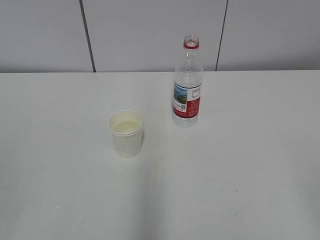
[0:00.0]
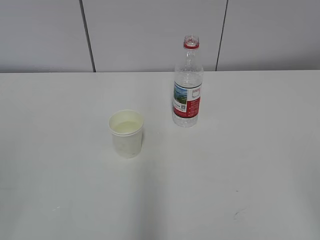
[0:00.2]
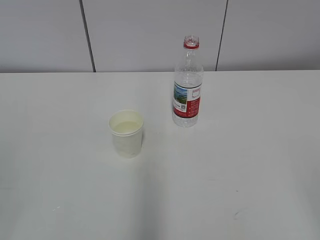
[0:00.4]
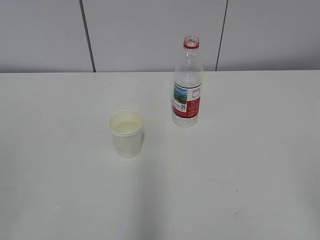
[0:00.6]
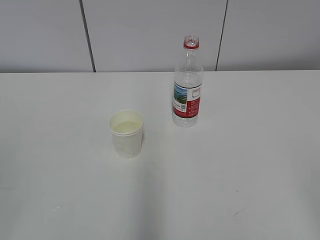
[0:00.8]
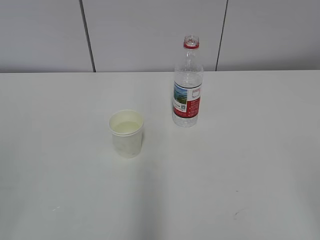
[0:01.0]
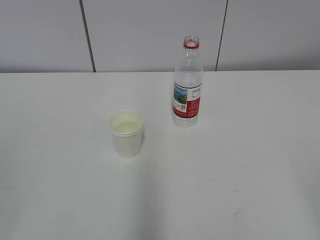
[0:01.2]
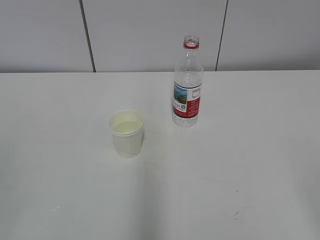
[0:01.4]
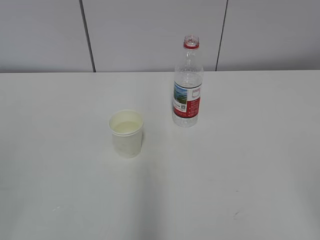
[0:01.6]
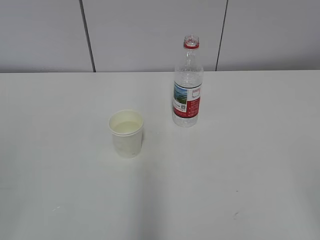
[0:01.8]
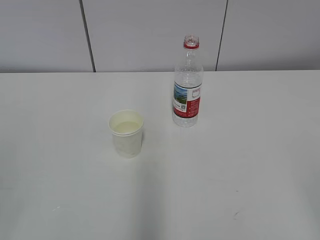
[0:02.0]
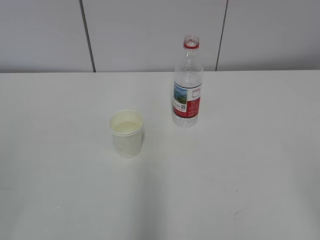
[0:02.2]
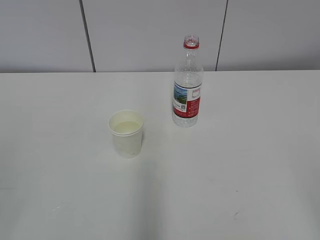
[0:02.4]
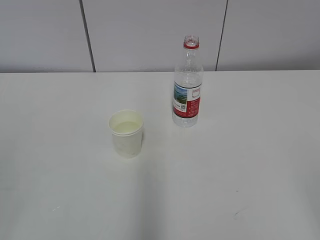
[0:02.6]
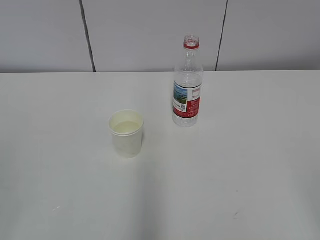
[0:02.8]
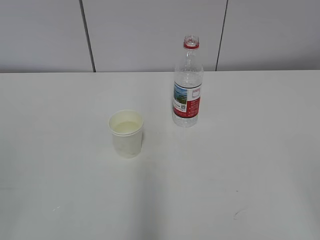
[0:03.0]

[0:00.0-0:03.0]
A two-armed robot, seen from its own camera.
0:00.0 to 0:03.0: Both grippers stay put.

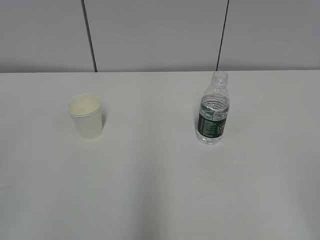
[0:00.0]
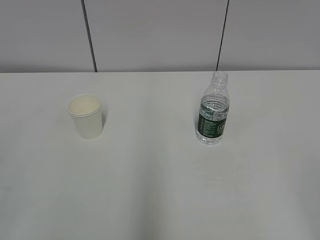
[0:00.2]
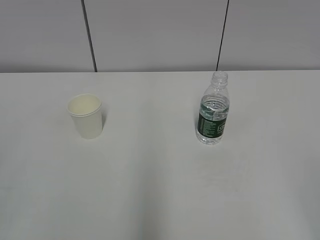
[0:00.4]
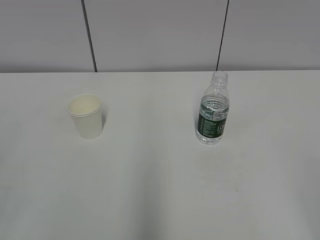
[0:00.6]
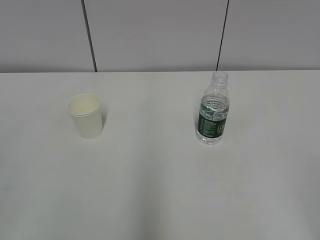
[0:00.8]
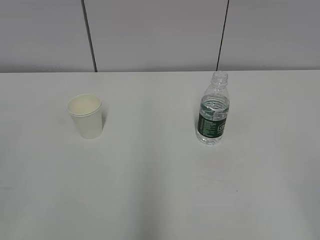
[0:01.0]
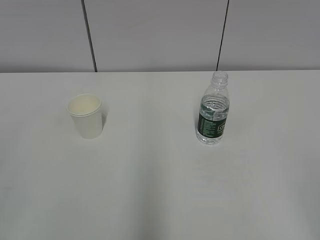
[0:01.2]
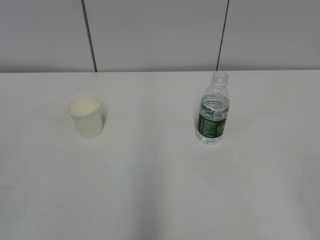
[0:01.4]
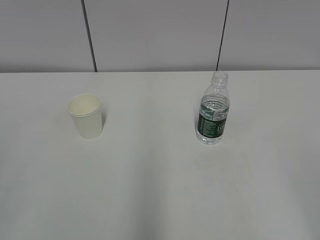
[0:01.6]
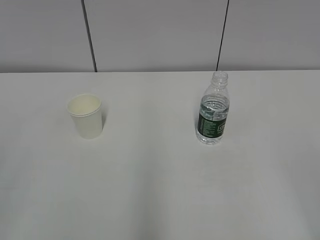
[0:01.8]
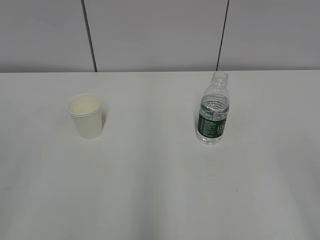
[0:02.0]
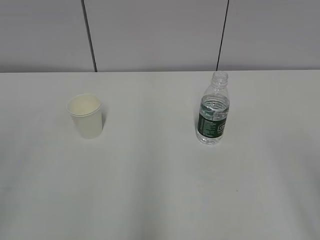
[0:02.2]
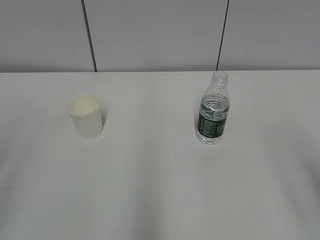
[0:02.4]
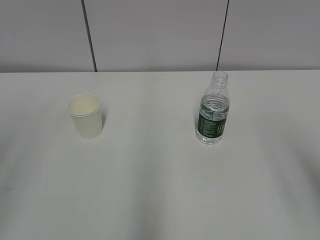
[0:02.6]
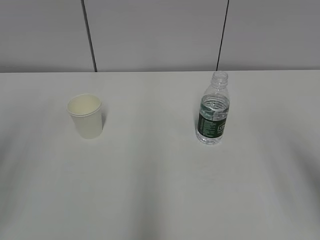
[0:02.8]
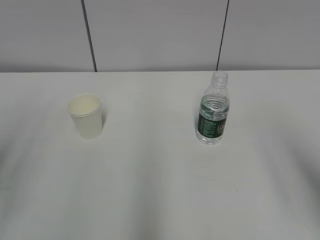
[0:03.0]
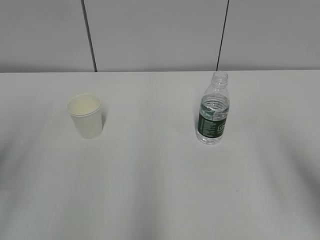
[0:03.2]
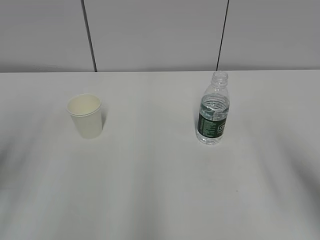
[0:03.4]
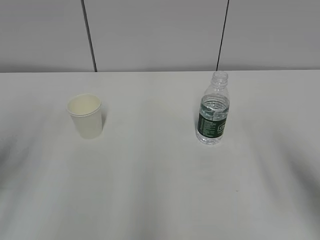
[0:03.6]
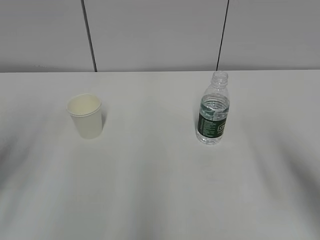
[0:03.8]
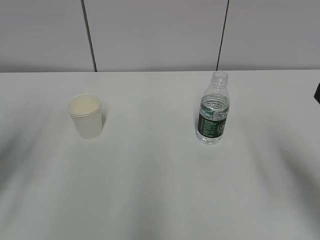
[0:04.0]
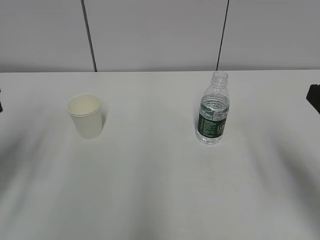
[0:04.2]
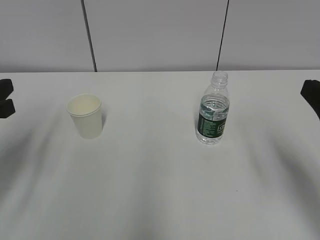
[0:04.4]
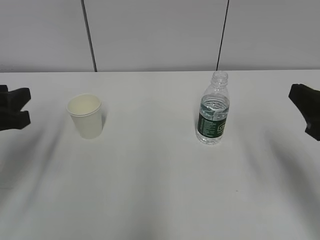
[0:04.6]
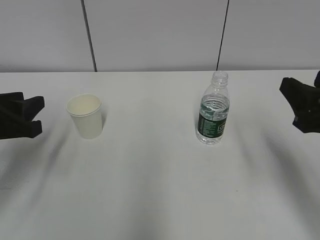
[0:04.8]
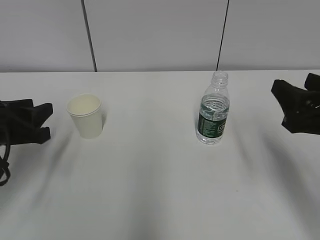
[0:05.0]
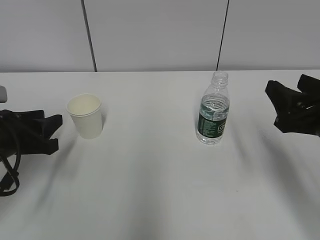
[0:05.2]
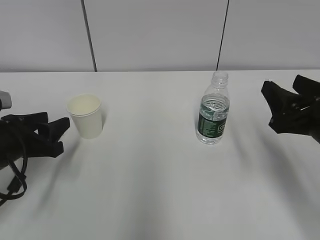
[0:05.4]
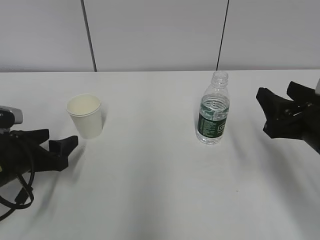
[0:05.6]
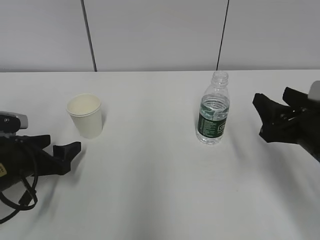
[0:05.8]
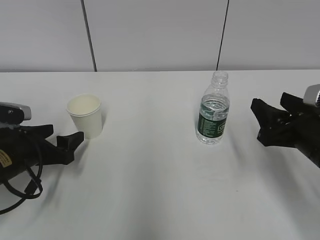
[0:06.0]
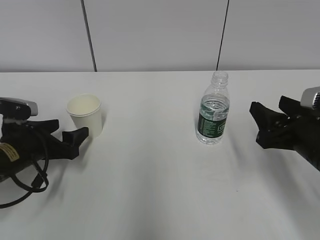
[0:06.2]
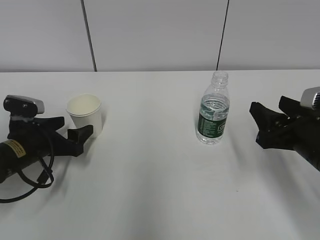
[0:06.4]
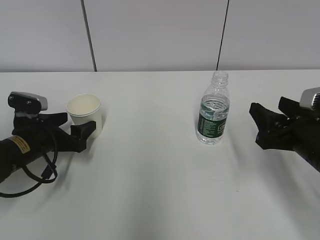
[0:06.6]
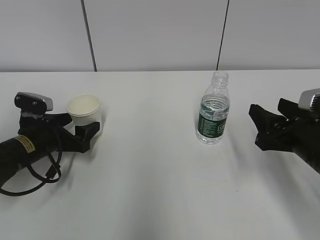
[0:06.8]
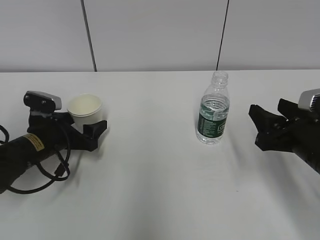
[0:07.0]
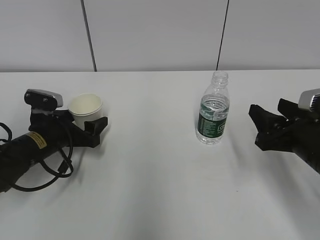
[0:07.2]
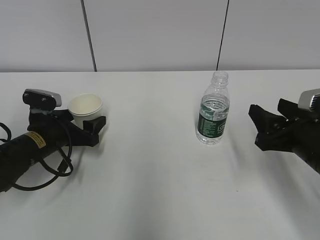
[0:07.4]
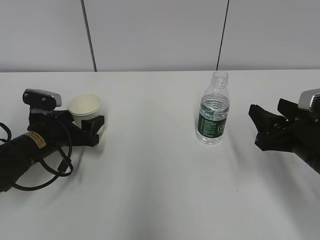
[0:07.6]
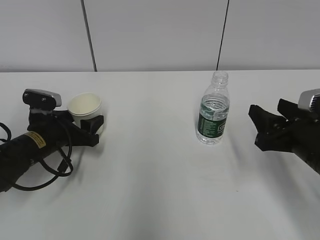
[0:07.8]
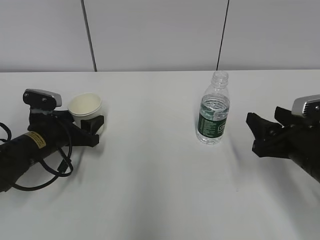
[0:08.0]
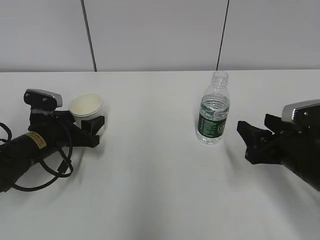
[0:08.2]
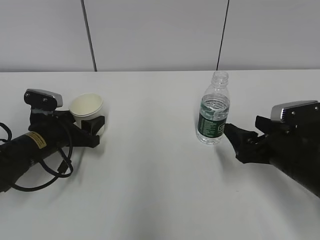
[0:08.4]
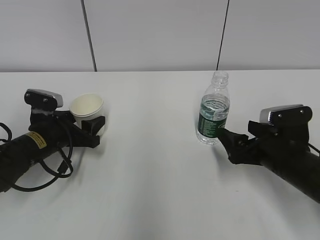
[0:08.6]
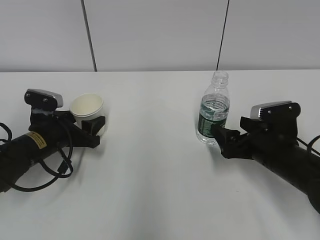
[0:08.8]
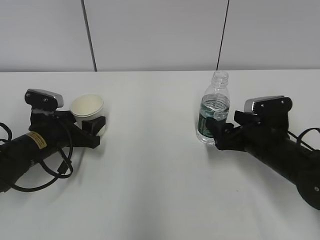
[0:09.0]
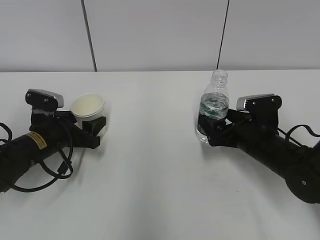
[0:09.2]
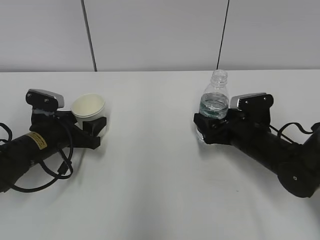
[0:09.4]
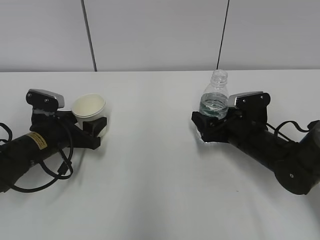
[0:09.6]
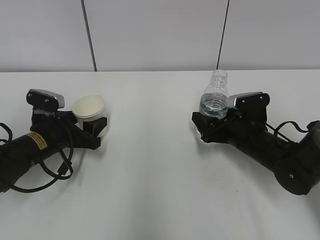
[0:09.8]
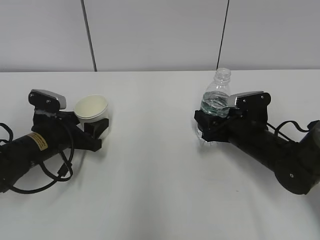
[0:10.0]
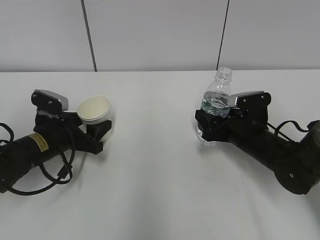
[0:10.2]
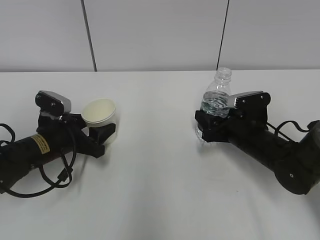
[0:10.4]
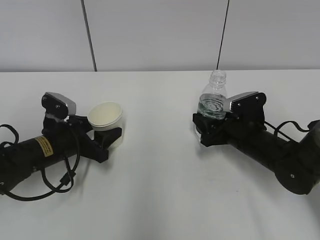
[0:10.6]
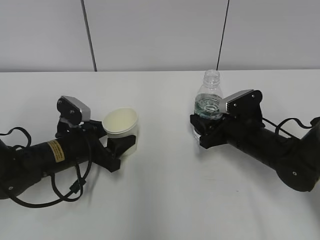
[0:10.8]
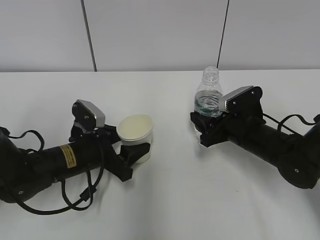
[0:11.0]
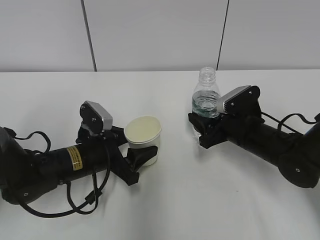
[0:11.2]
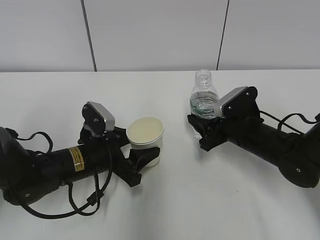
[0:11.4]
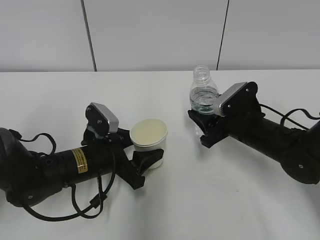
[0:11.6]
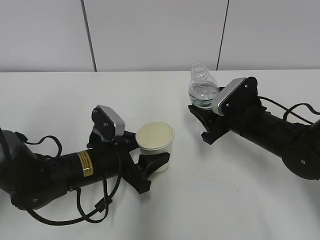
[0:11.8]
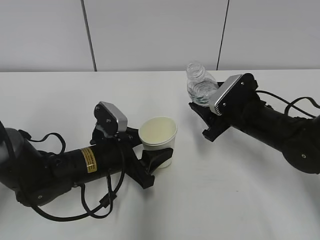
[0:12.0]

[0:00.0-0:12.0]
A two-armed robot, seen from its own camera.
Step, 0:00.0 to 0:06.2: Grab the paper cup with the left hand.
Step, 0:06.4 to 0:08.2: Grab the water bottle with the right hand.
0:03.0 to 0:04.4: The grippers both shift forward and downward by about 10 cm.
0:04.4 to 0:06.0: Both grippers move downward and forward, about 15 cm. The left gripper opens.
0:06.0 to 0:07.6: The left gripper goes approximately 5 cm forward.
0:07.6 to 0:09.0: The right gripper heads forward and downward, covering approximately 10 cm, and opens its fingers.
0:09.0 to 0:10.4: The right gripper closes its fingers.
0:10.4 to 0:12.0: The left gripper is displaced to the right by about 10 cm.

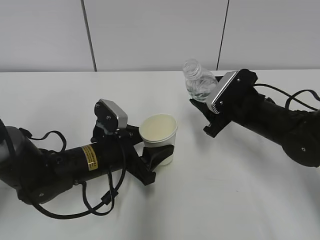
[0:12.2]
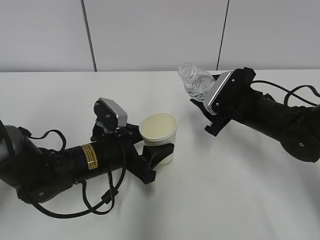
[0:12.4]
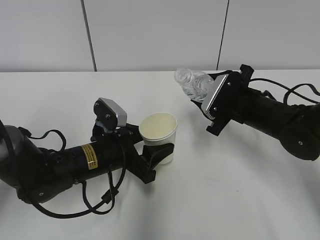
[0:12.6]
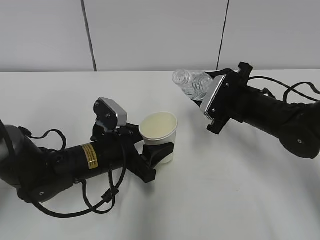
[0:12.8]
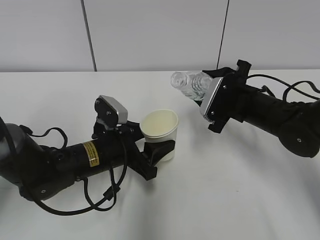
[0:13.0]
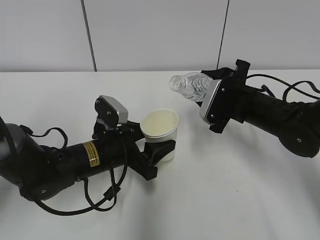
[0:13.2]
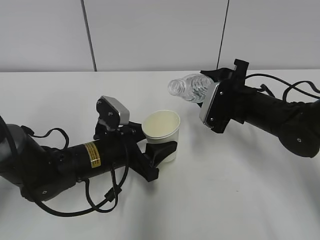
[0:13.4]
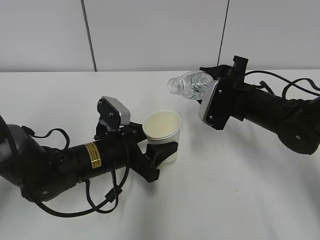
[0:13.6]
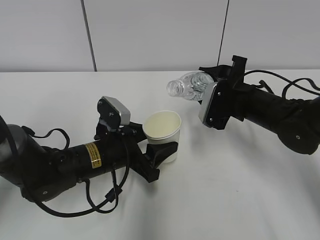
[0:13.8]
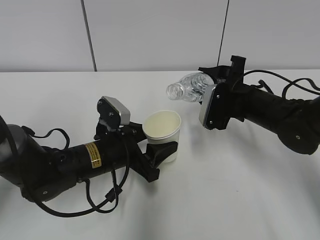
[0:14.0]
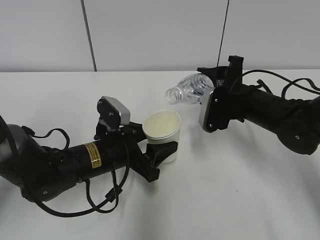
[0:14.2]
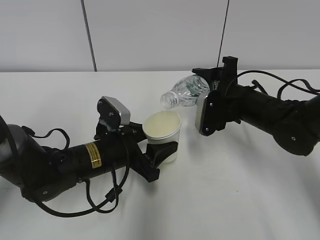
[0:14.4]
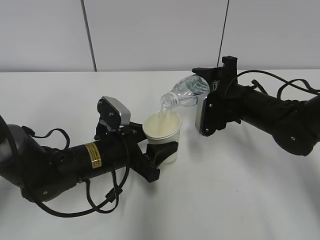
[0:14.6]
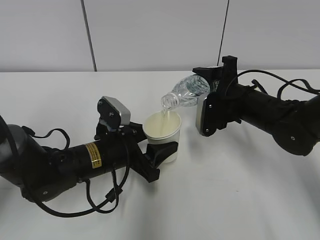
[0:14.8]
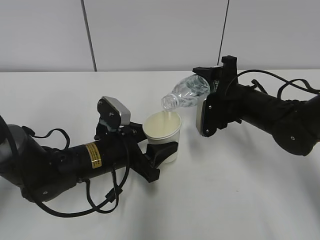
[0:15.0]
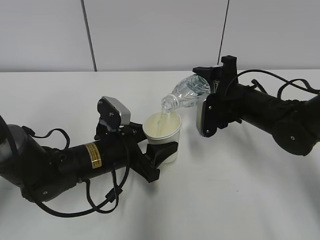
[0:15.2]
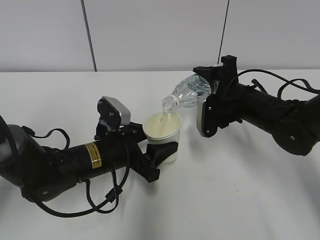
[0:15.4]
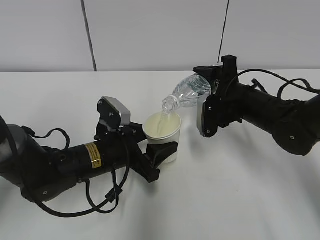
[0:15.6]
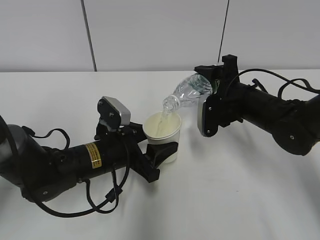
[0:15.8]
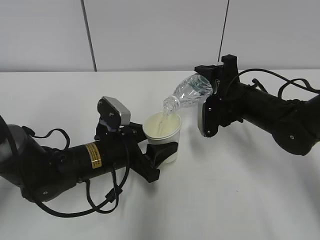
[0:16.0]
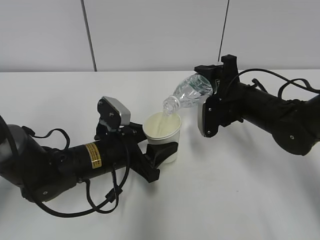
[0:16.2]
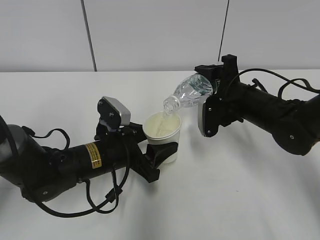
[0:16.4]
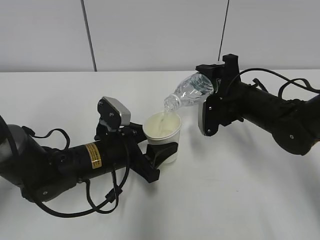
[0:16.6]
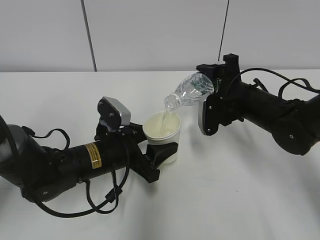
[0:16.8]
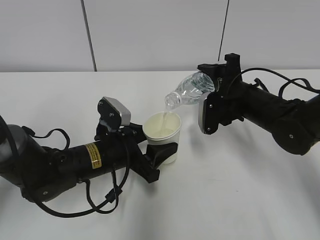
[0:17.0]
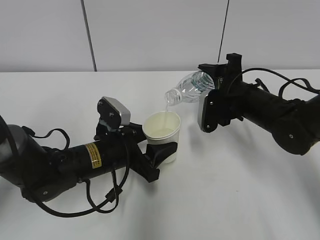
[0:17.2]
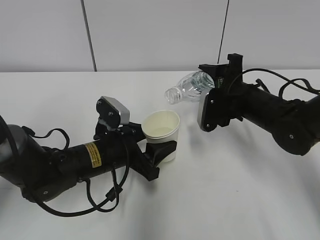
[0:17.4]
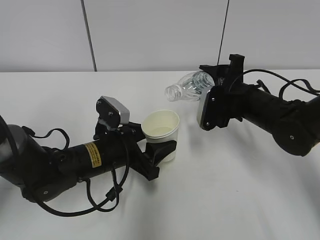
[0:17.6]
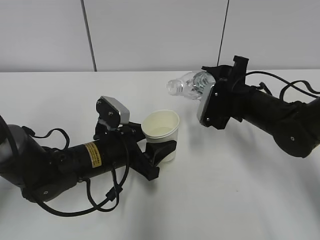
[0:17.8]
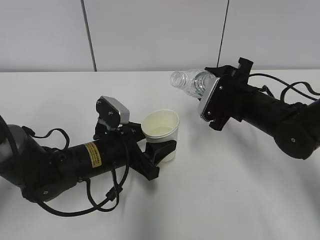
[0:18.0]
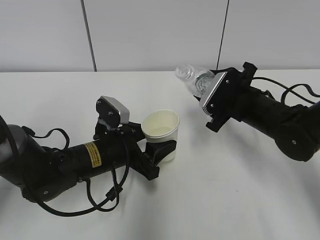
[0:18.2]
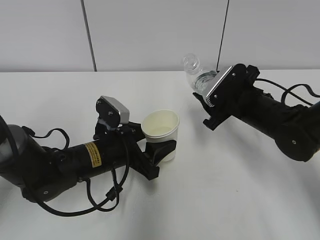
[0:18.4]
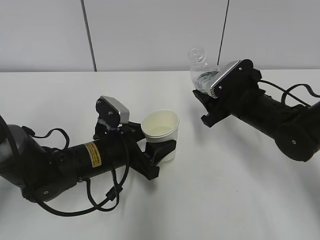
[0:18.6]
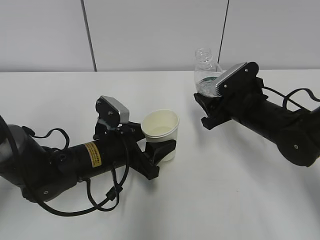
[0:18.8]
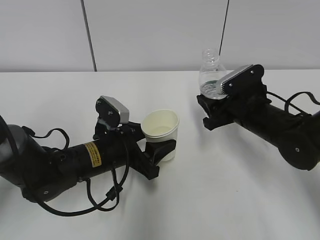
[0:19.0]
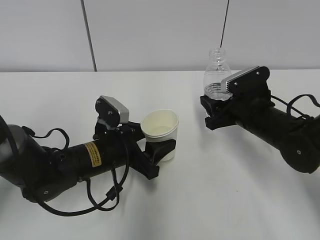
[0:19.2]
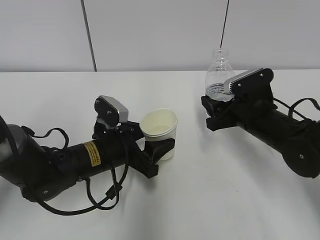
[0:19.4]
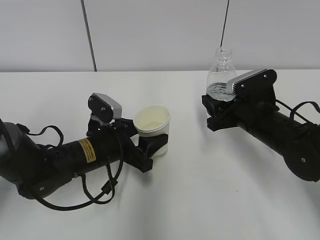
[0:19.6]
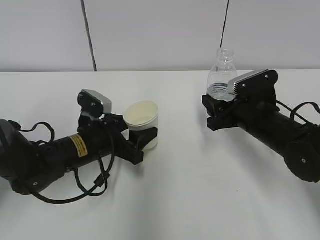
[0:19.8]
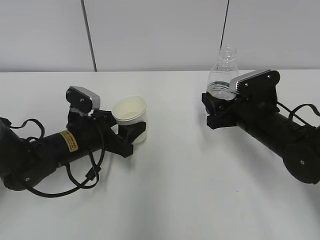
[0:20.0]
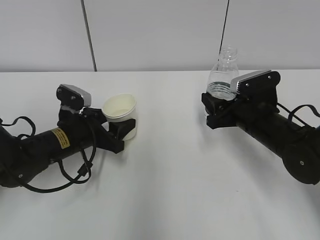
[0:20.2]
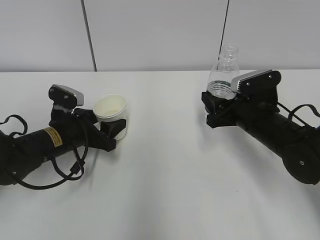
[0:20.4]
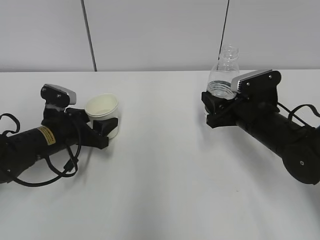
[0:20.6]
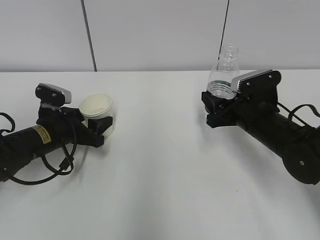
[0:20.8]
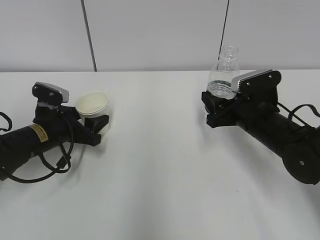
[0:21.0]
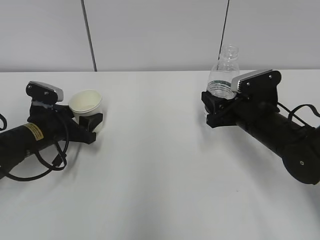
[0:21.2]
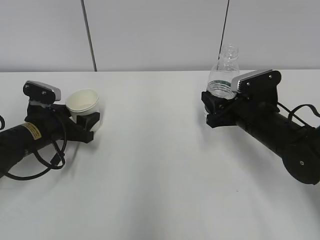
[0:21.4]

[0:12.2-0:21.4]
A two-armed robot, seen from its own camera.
Step, 0:12.2 to 0:14.4: Fill water with the left hand.
Step, 0:12.2 to 0:14.4: Pour water with the right hand.
Step, 0:16.2 to 0:21.4: Place the water bottle with the right hand.
0:13.8 to 0:15.2: The grippers make only small movements.
0:15.2 to 0:16.8: The grippers make only small movements.
0:19.8 to 0:21.4: The left gripper goes about 10 cm to the left.
